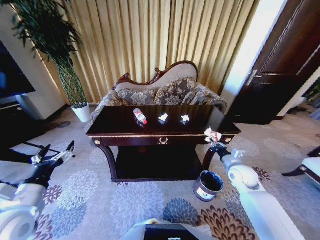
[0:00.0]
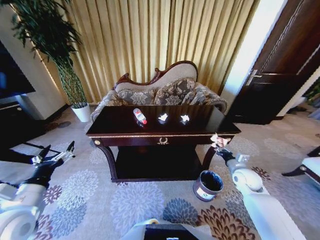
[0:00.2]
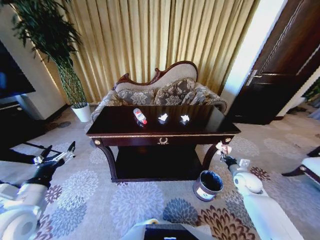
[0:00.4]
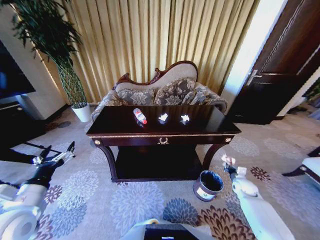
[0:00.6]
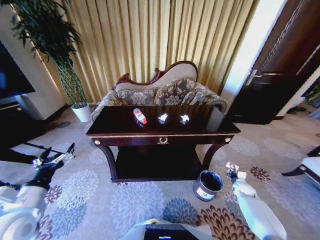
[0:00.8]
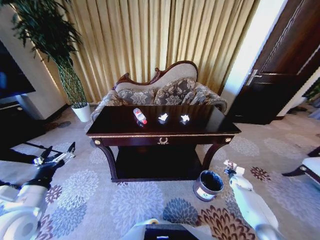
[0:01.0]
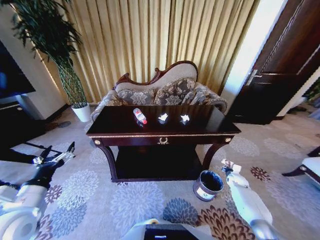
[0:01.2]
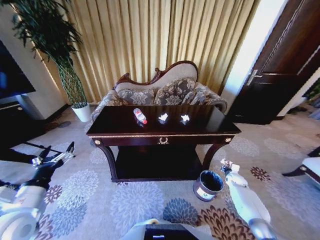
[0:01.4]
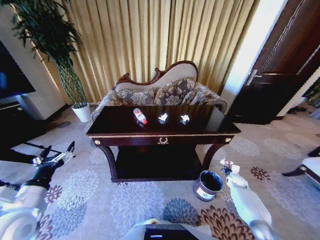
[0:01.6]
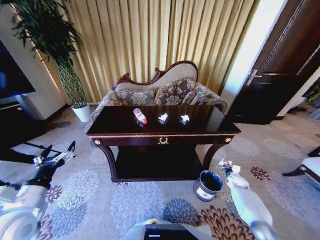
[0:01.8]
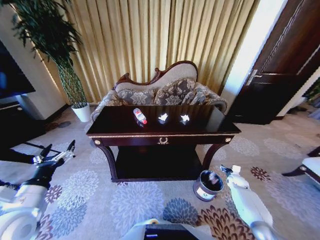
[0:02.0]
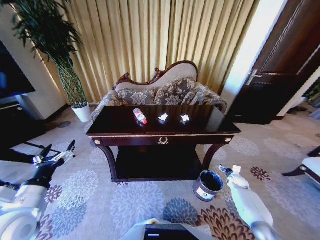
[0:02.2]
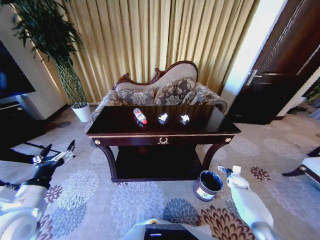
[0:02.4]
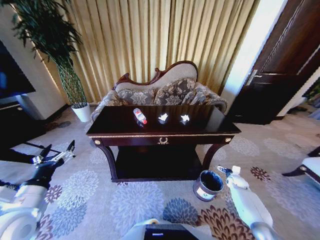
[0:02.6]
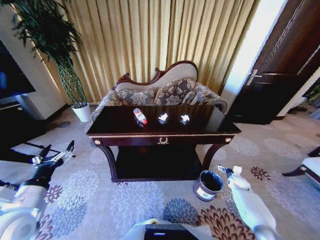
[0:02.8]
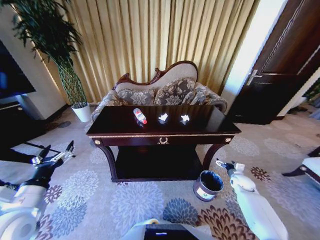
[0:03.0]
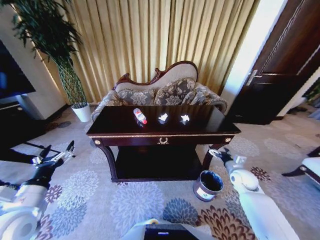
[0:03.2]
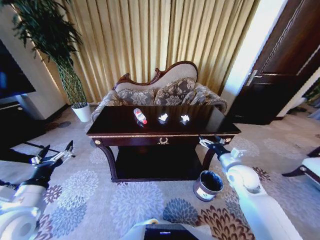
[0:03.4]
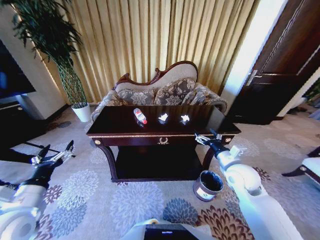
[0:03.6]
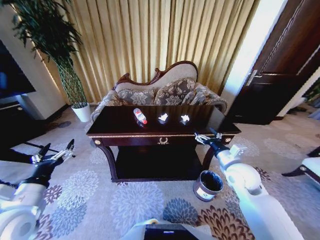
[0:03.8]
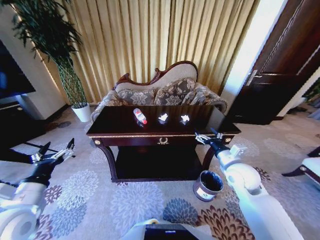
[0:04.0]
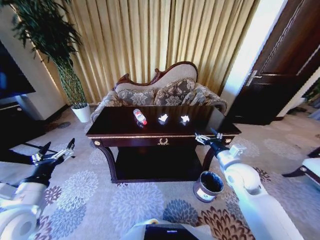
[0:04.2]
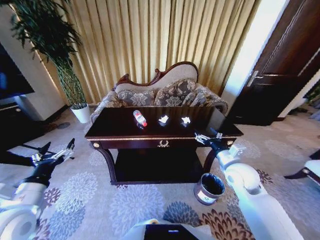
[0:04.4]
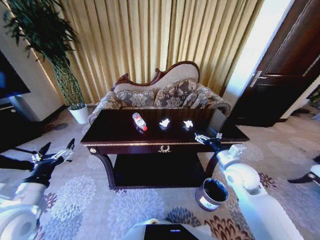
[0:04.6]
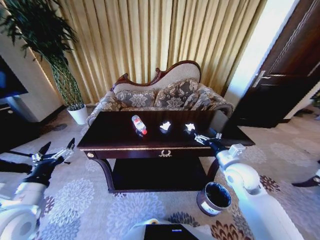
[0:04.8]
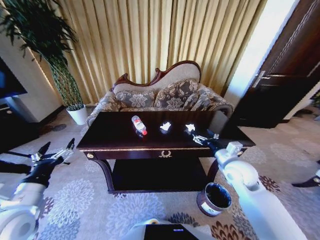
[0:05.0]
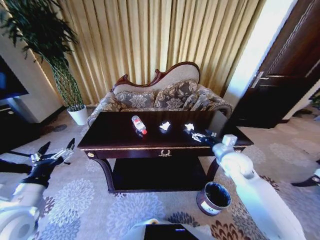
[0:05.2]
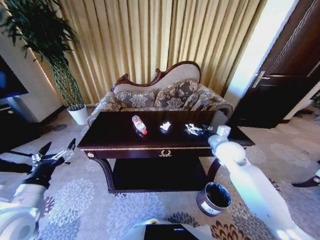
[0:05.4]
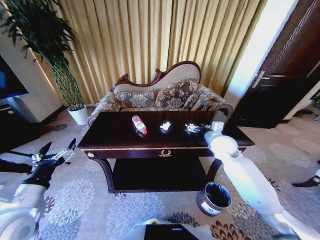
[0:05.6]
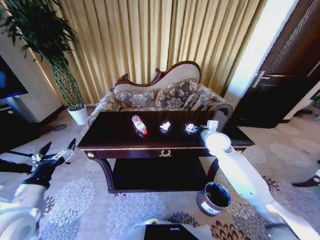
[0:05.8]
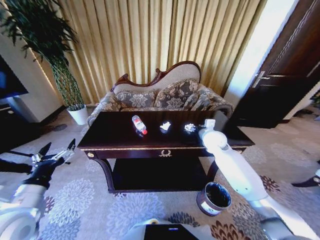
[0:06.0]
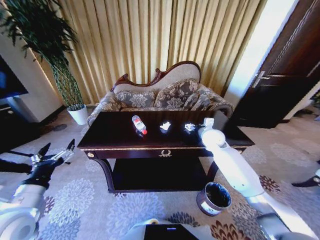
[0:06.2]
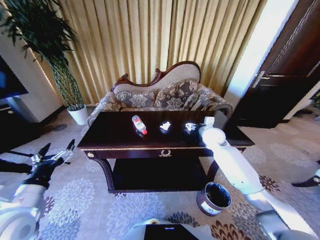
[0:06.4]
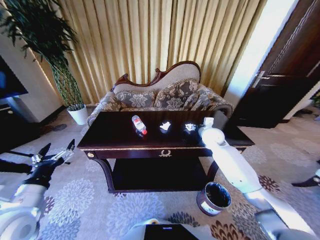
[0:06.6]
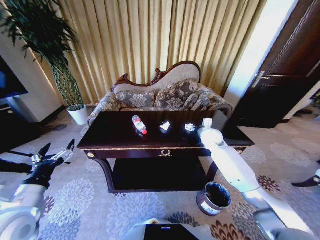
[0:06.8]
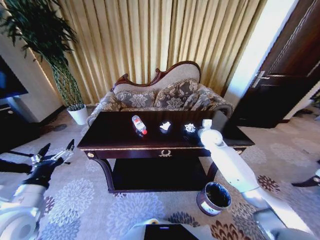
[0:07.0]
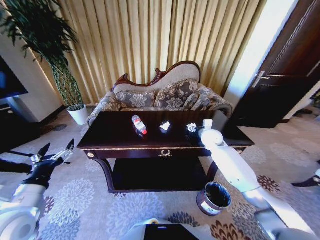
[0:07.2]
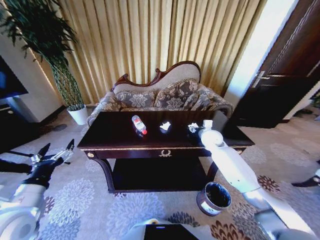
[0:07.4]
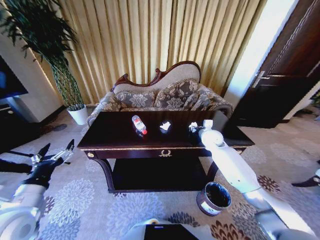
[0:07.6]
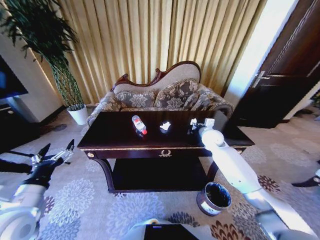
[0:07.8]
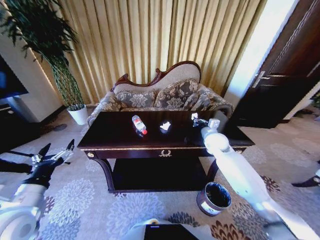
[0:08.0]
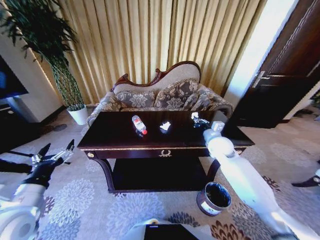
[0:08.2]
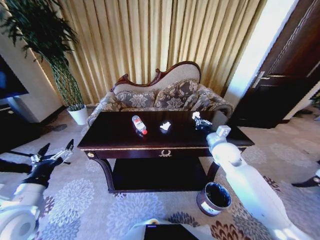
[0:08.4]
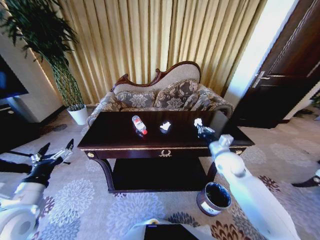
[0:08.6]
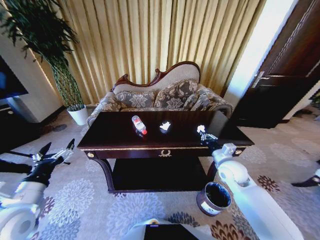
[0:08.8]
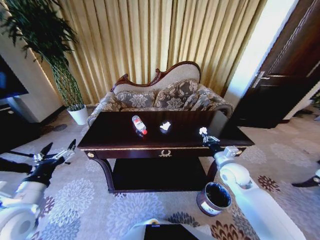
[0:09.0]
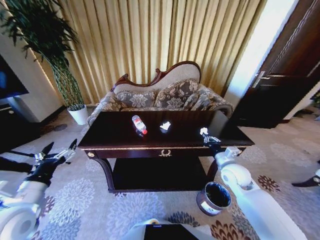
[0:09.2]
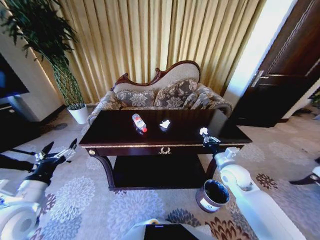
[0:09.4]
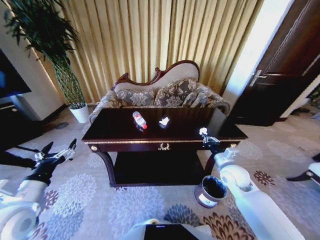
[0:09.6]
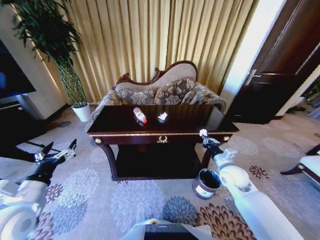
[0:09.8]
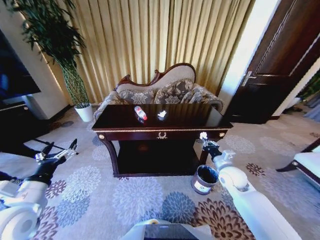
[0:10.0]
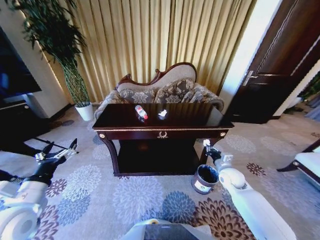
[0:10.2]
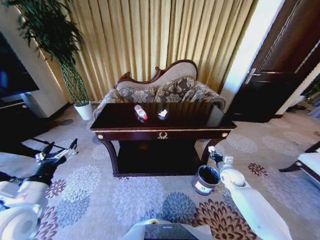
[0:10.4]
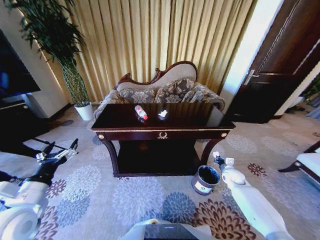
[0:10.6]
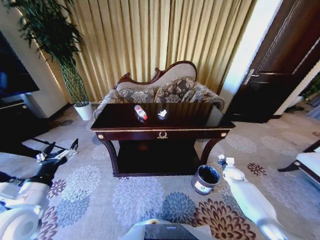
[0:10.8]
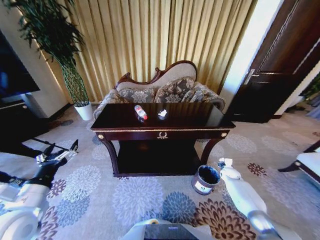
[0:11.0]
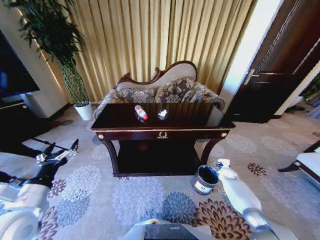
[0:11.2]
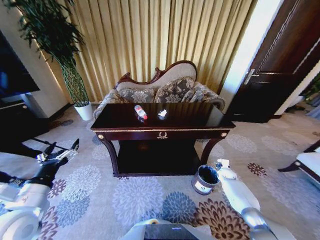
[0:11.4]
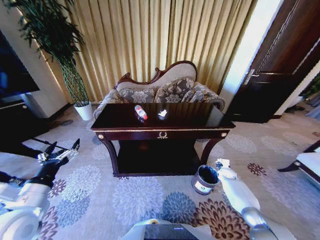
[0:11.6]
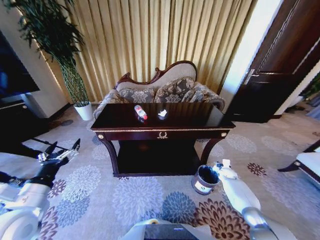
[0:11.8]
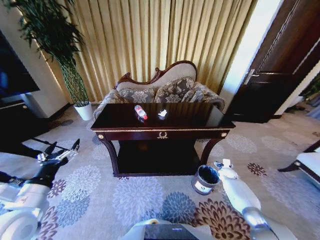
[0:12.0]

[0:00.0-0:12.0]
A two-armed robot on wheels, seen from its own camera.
Task of the whole recording: Move to the front of the table and place the trash on the table into the trash bin.
0:00.0 to 0:01.6: The right gripper travels downward and to the right by about 25 cm.
0:01.6 to 0:03.0: The right gripper travels upward by about 5 cm, and opens up.
0:03.0 to 0:04.4: The right gripper goes about 30 cm upward and to the left.
0:04.4 to 0:06.0: The right gripper is displaced forward by about 15 cm.
0:06.0 to 0:07.6: The right gripper closes.
0:07.6 to 0:09.0: The right gripper heads backward, covering approximately 15 cm.
0:09.0 to 0:10.4: The right gripper shifts approximately 15 cm downward and to the right.
0:10.4 to 0:12.0: The right gripper moves downward, to the right and forward, about 15 cm, and opens its fingers.

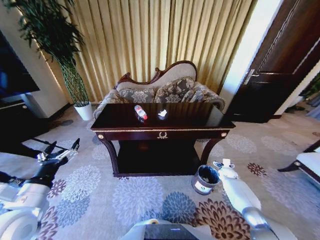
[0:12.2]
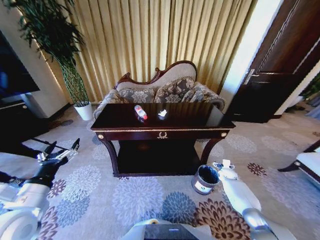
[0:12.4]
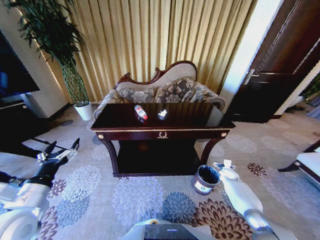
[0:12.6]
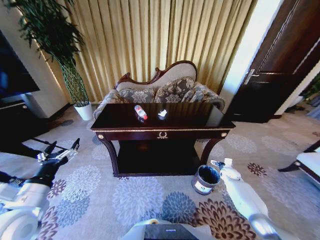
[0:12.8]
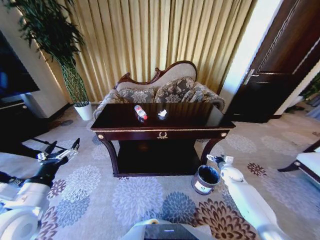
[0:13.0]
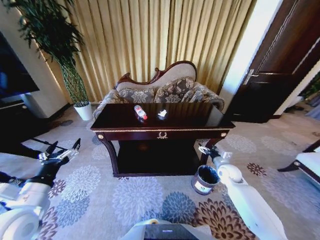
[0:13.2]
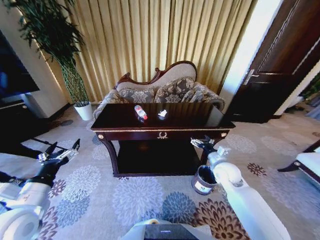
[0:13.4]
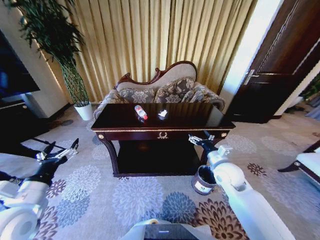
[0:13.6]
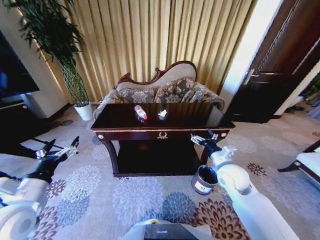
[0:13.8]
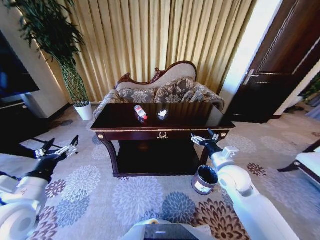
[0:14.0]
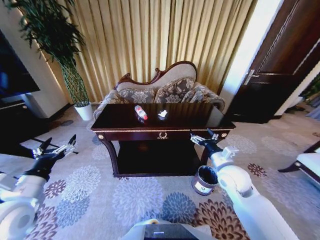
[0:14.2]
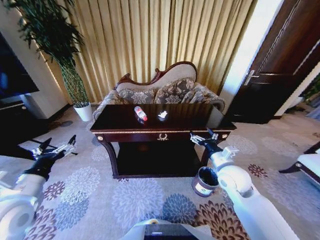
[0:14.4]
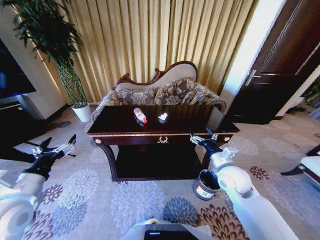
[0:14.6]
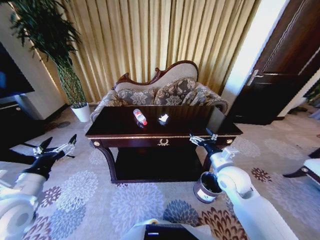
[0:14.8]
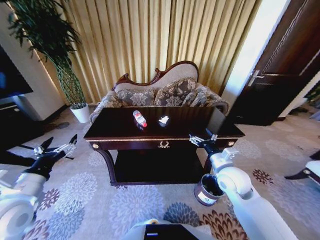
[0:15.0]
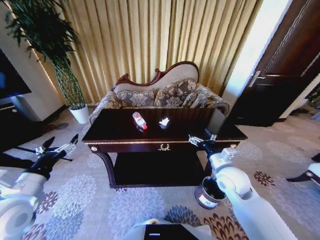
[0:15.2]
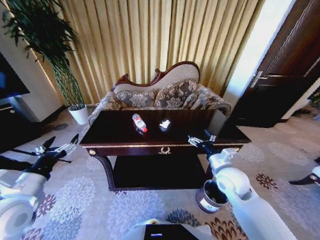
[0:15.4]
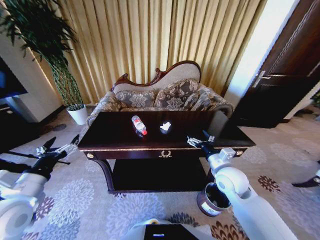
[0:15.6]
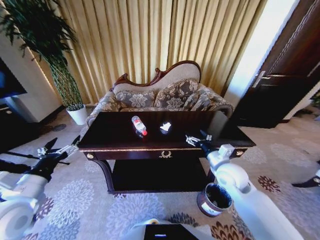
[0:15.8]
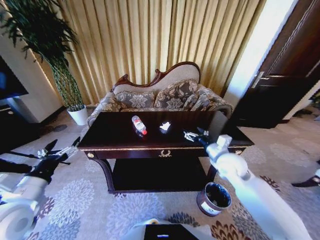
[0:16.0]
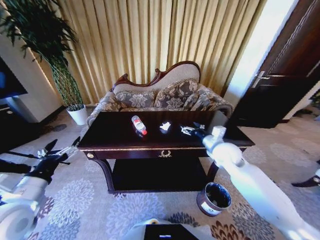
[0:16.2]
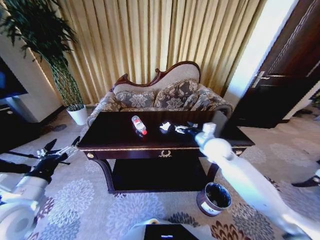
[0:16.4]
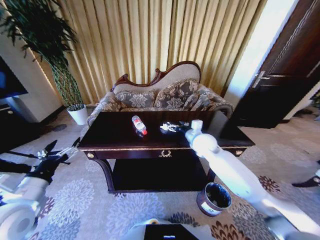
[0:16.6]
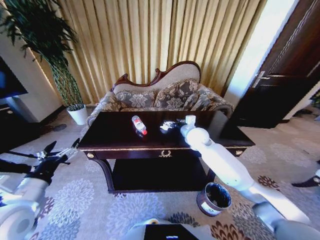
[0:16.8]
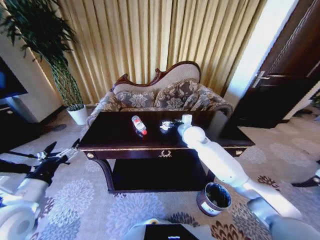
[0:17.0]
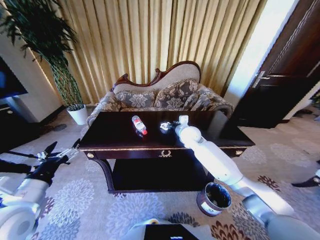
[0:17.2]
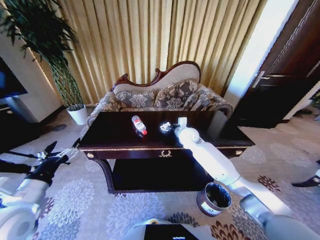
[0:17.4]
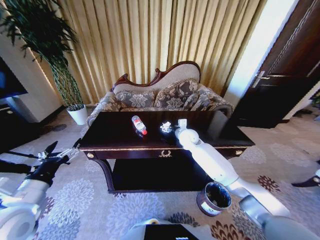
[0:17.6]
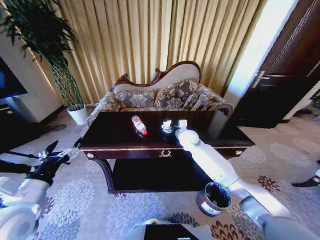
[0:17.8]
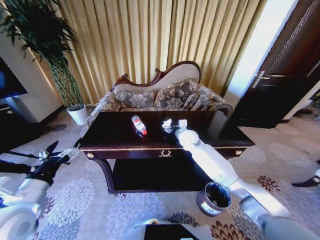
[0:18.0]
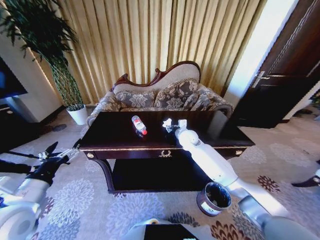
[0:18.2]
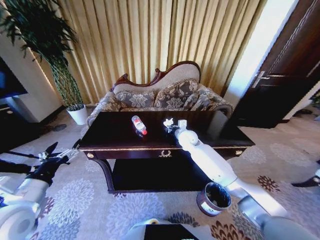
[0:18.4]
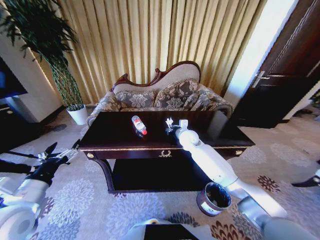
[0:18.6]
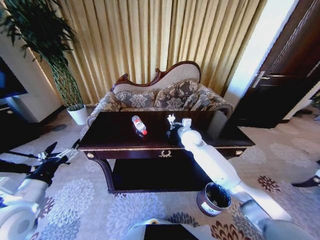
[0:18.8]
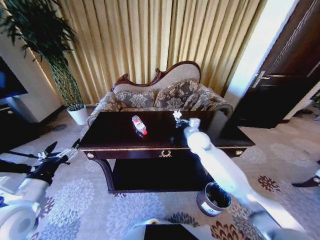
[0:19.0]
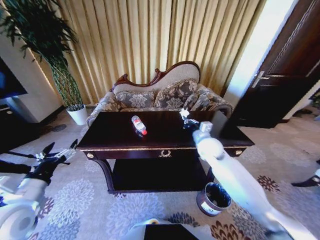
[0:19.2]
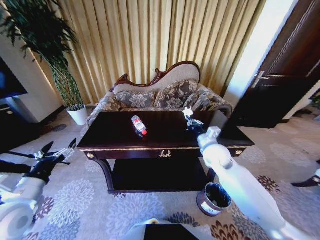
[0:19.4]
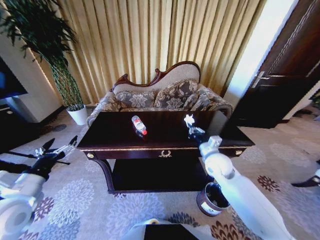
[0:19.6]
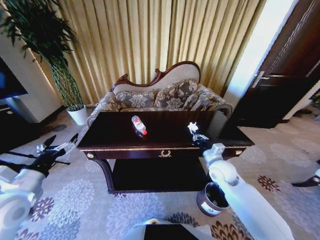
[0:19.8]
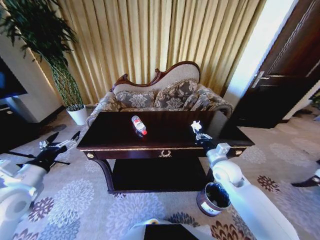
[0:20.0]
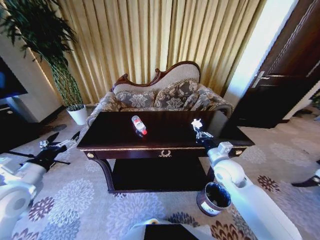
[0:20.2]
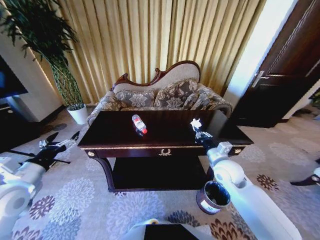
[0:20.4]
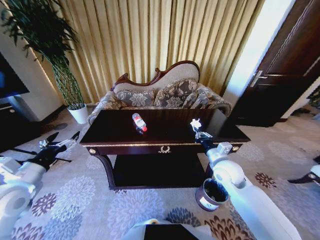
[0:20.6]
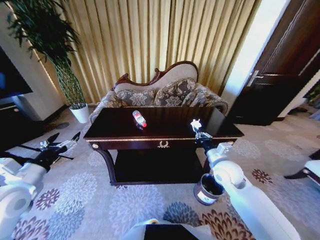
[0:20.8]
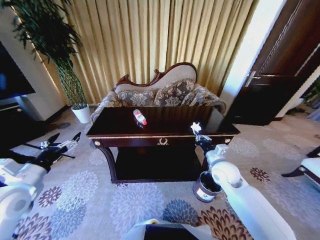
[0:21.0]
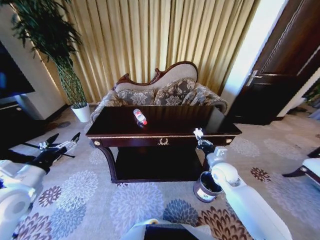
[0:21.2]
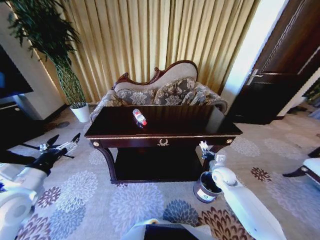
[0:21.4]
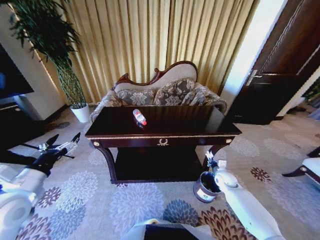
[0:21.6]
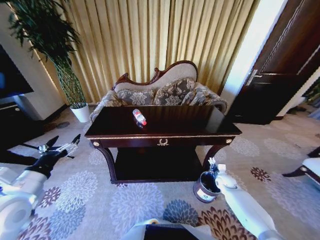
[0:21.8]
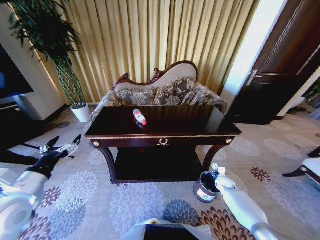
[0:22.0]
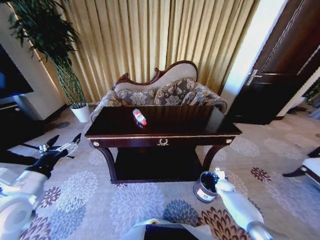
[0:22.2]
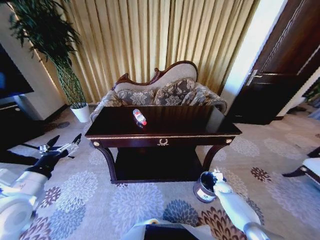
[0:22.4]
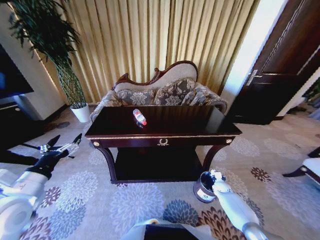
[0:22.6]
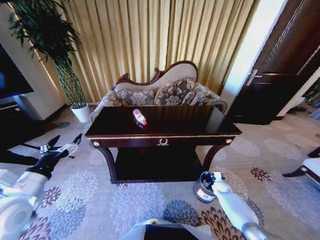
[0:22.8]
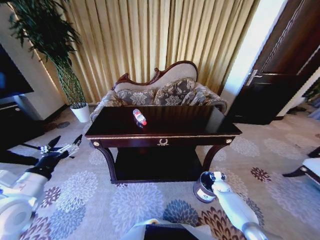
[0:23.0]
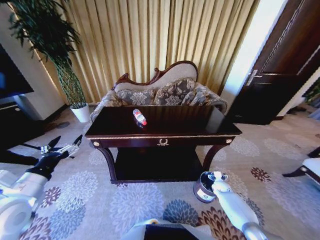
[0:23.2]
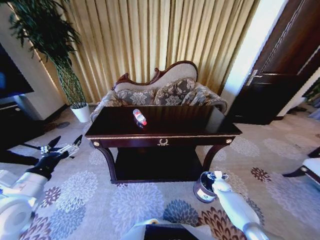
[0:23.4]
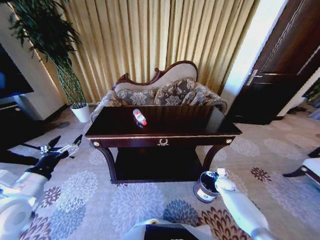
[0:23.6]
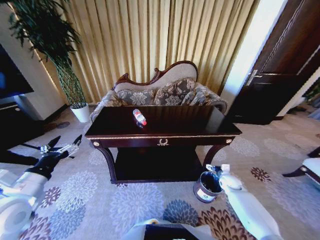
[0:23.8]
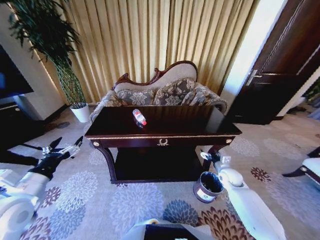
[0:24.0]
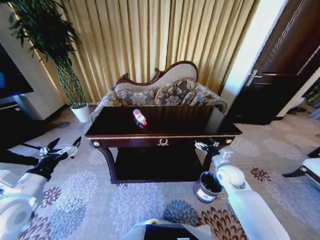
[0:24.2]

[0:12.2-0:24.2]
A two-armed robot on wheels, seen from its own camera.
Task of the whole recording: Move to the front of the table and place the trash on the table into the trash bin.
0:12.2 to 0:13.8: The right gripper is displaced upward, to the left and backward by some 35 cm.
0:15.2 to 0:16.6: The right gripper shifts some 15 cm forward.
0:16.6 to 0:18.2: The right gripper travels forward by approximately 5 cm, and closes its fingers.
0:18.2 to 0:19.8: The right gripper heads backward and to the right, covering some 20 cm, and closes its fingers.
0:19.8 to 0:21.2: The right gripper shifts by some 5 cm.
0:21.2 to 0:22.6: The right gripper shifts roughly 30 cm downward and to the right.
0:22.6 to 0:24.2: The right gripper travels upward by some 25 cm, and opens its fingers.
